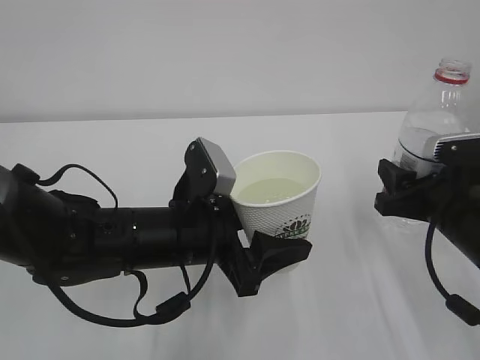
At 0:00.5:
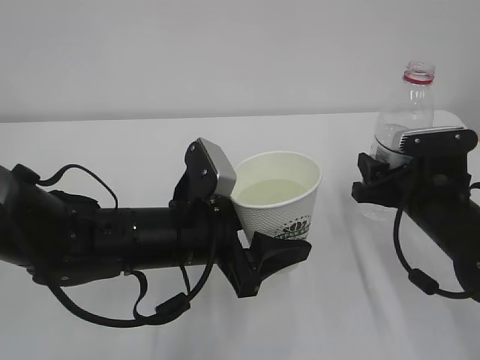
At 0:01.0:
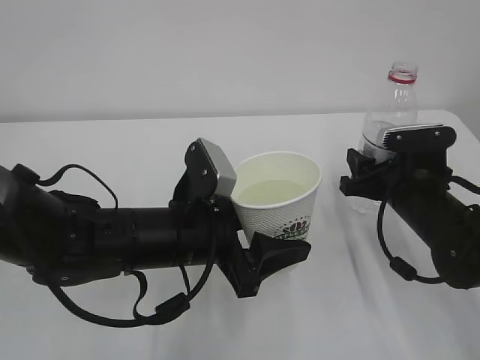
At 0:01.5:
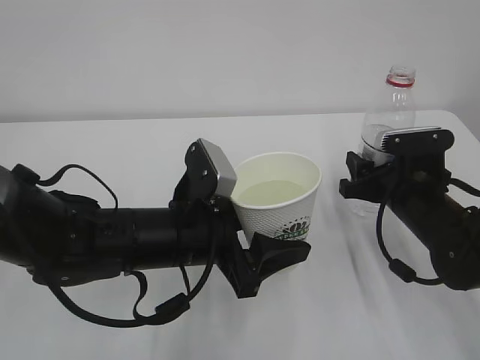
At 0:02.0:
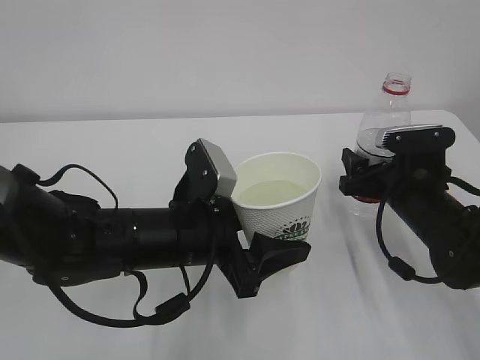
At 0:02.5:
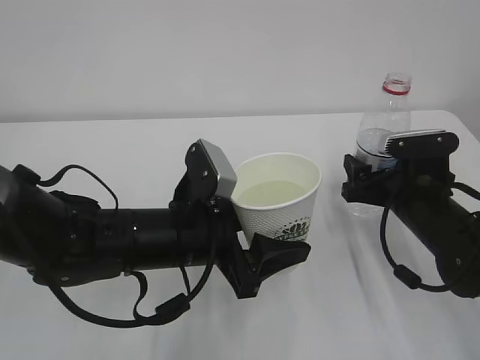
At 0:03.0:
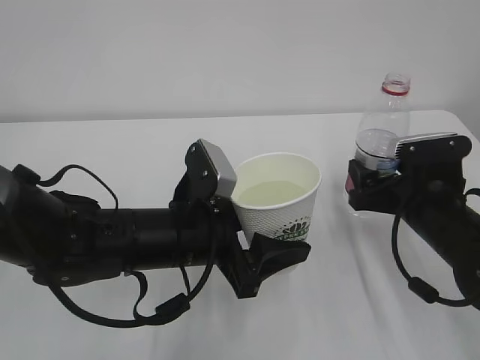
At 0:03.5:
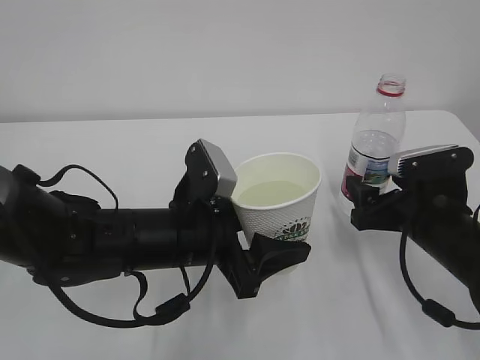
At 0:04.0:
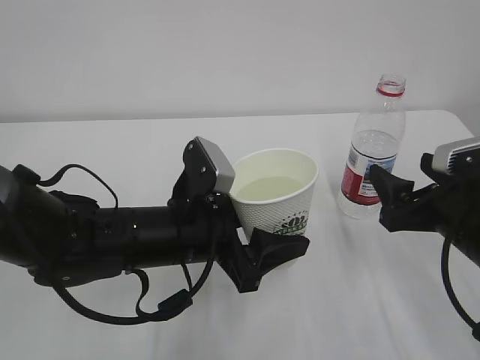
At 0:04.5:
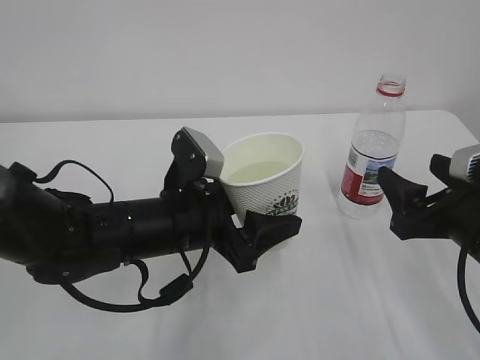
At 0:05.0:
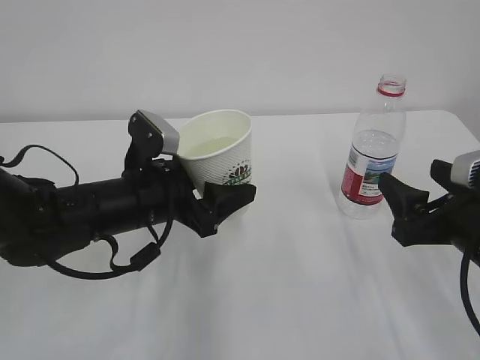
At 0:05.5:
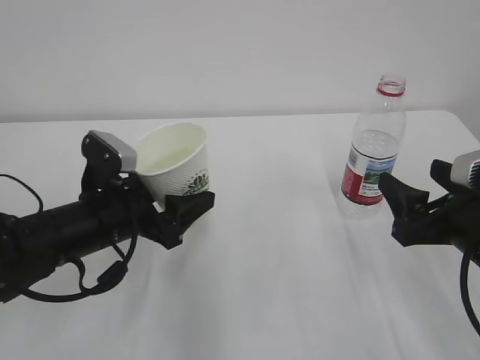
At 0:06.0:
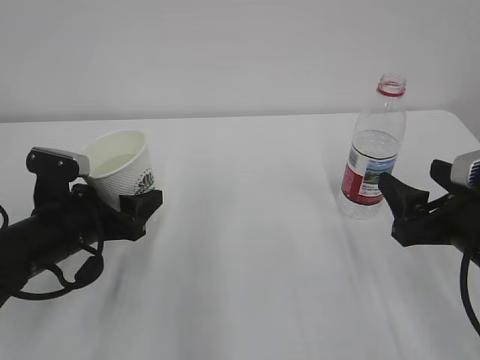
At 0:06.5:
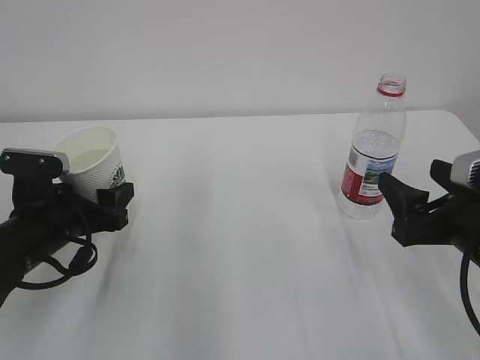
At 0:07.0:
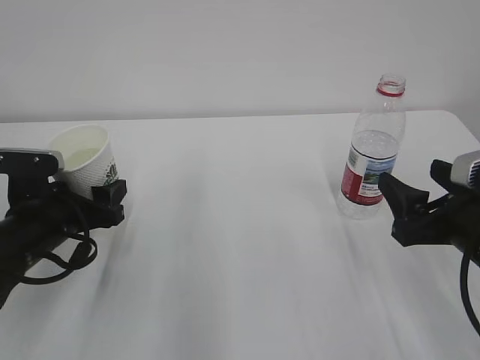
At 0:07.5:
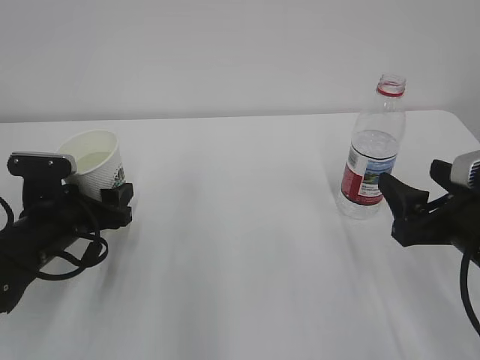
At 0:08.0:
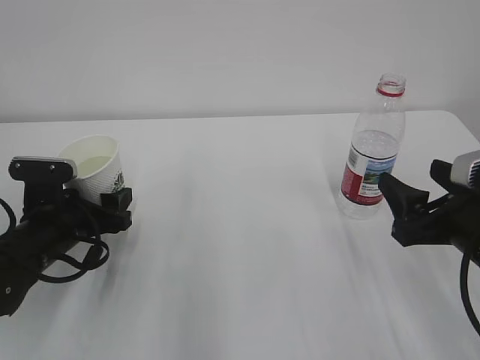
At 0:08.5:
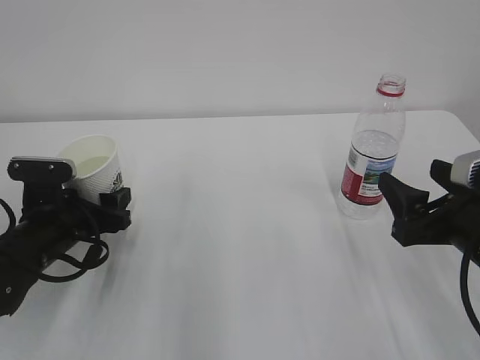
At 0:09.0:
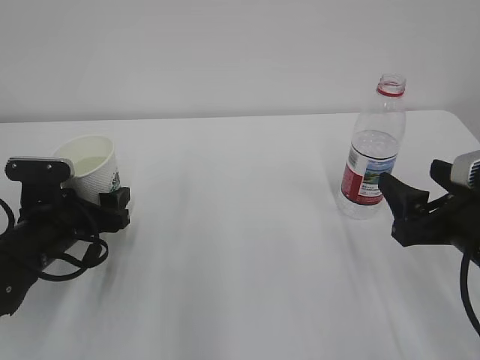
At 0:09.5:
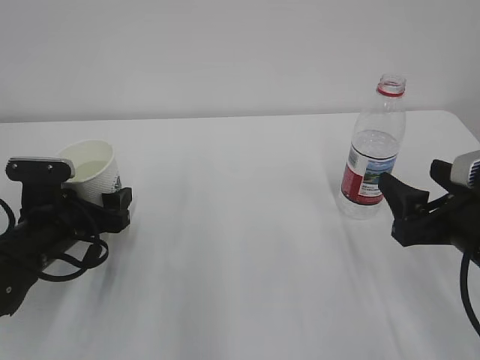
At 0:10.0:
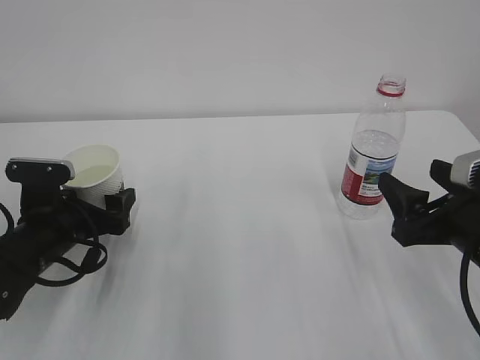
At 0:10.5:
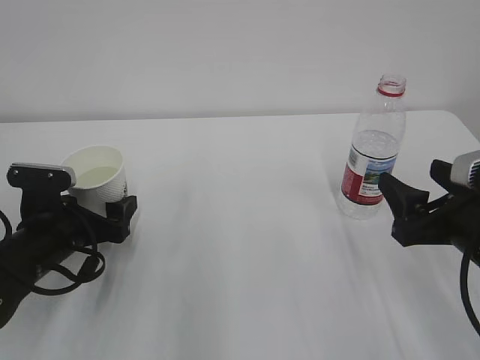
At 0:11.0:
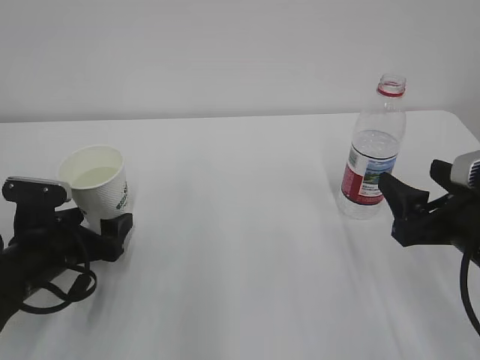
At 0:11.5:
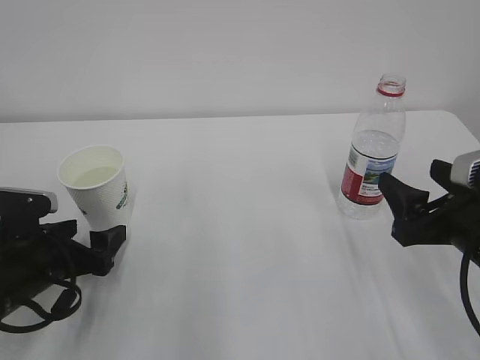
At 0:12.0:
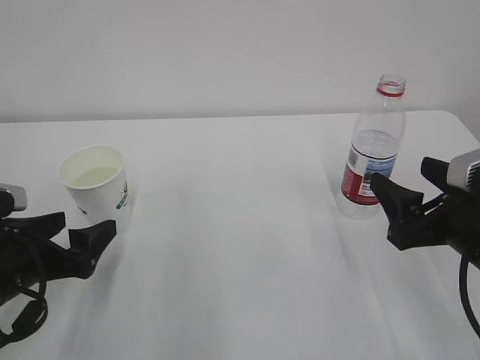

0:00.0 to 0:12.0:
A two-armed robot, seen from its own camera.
0:00.0 to 0:02.0: The right gripper travels forward by approximately 5 cm, and opens.
0:02.0 to 0:04.0: The right gripper goes about 10 cm backward.
0:04.0 to 0:06.0: The left gripper travels to the left by about 15 cm.
0:06.0 to 0:08.0: The grippers move only a little.
0:08.0 to 0:10.0: The left gripper opens up.
0:10.0 to 0:12.0: The left gripper travels backward by some 10 cm.

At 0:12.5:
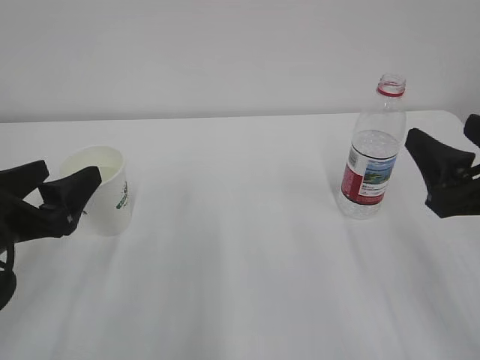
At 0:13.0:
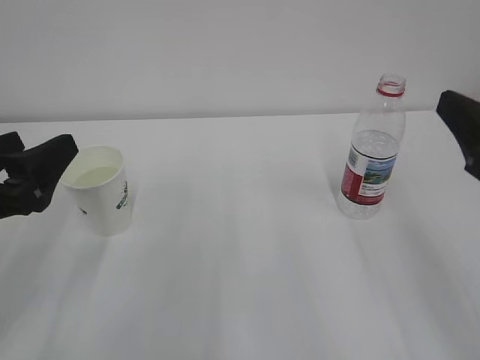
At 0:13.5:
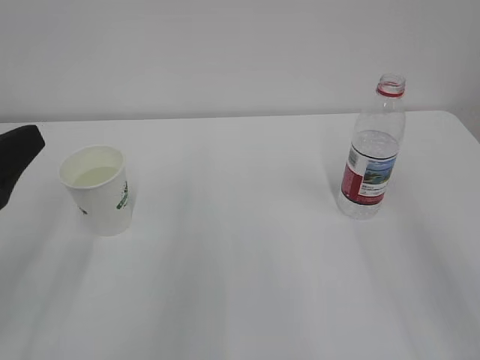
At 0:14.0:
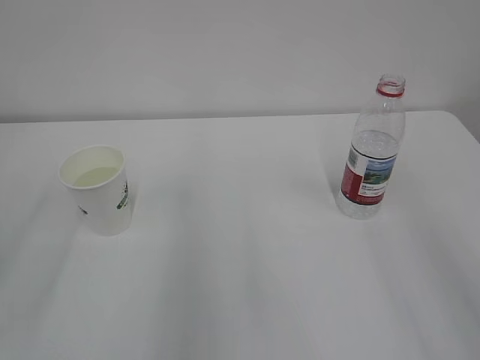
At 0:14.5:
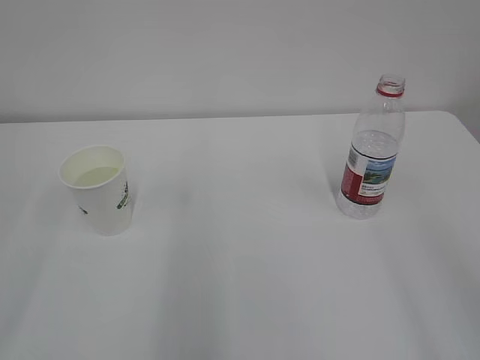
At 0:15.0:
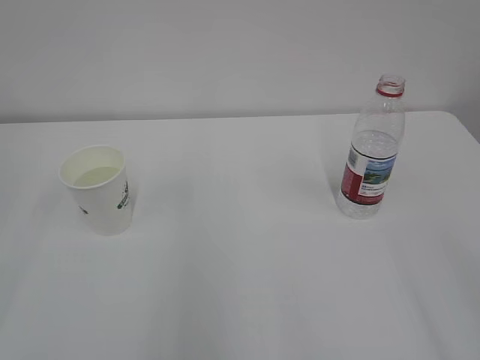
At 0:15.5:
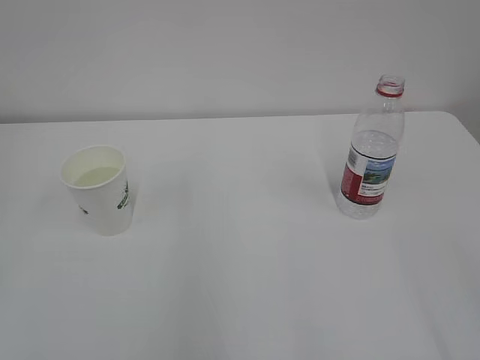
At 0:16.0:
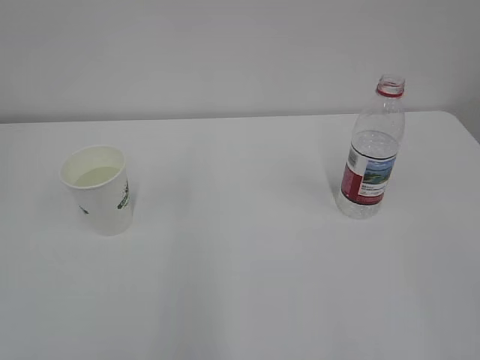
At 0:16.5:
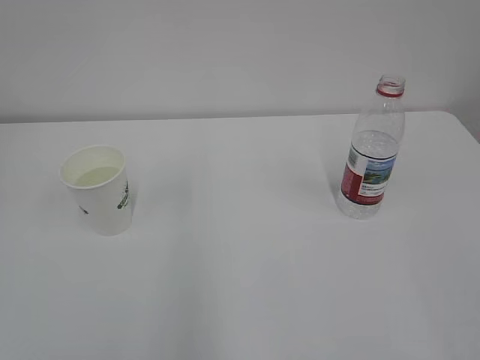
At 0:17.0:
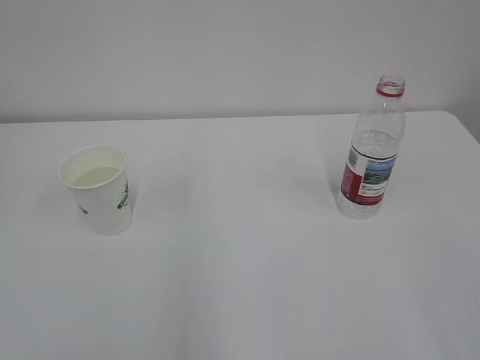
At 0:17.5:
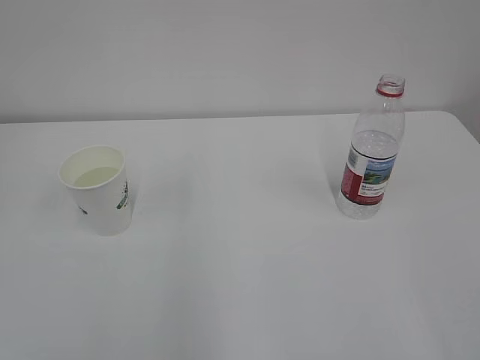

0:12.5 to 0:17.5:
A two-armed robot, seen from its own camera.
0:12.5 to 0:15.0: The grippers both shift backward and upward by about 25 cm. The left gripper closes.
